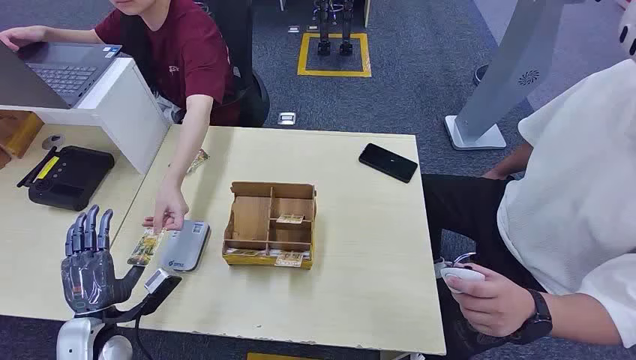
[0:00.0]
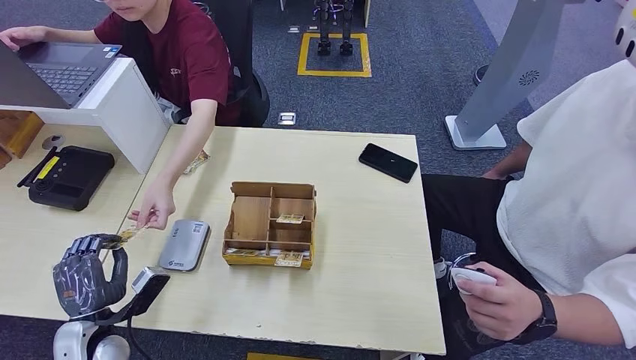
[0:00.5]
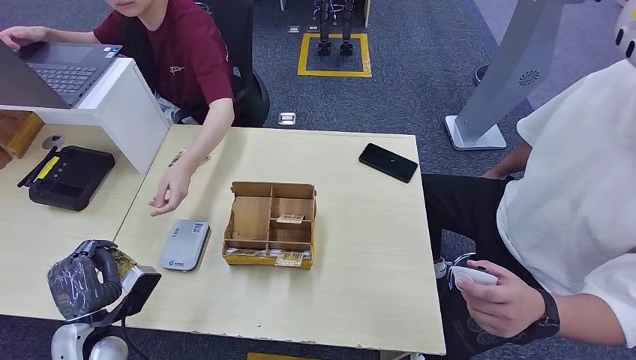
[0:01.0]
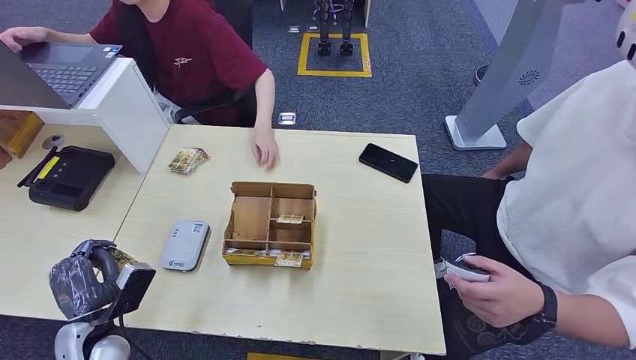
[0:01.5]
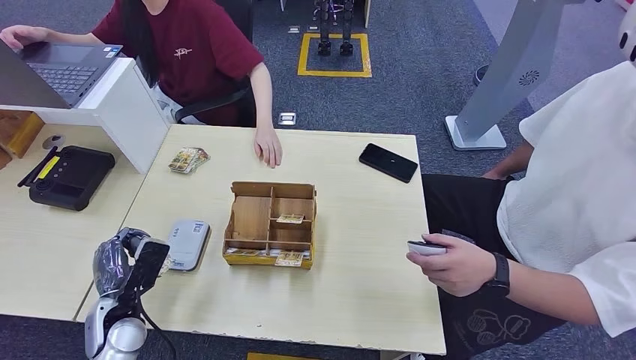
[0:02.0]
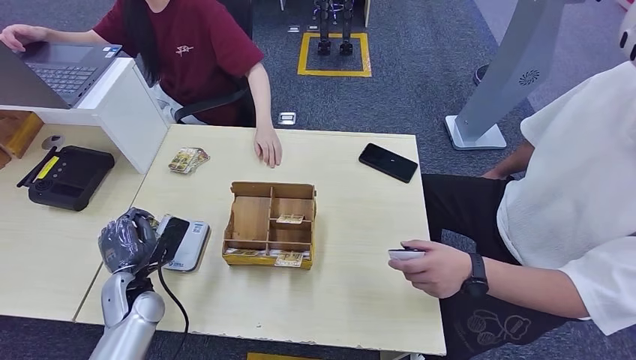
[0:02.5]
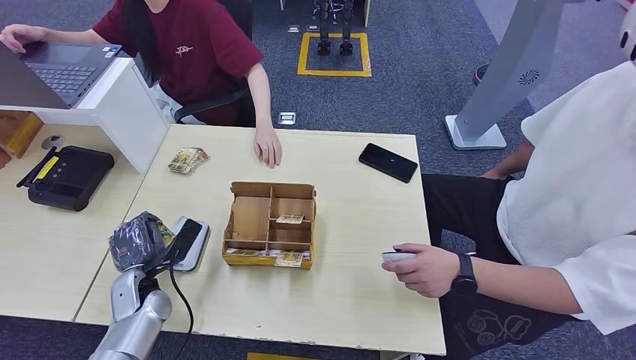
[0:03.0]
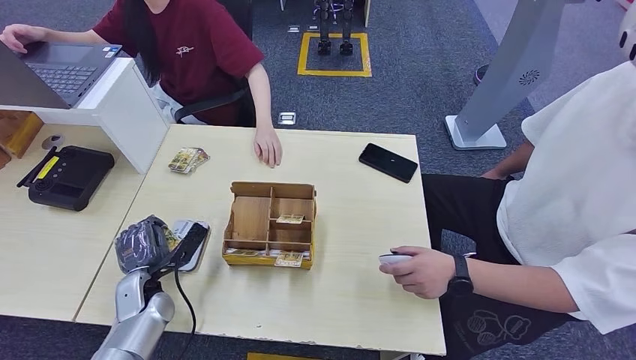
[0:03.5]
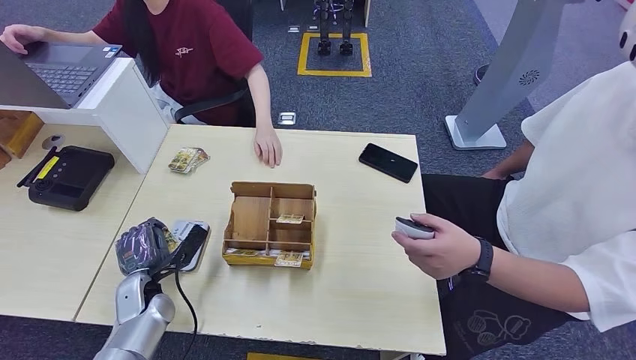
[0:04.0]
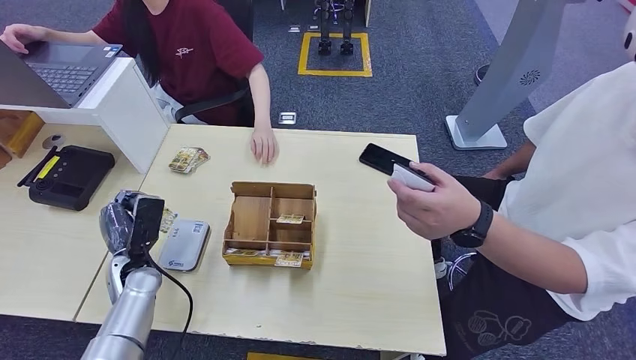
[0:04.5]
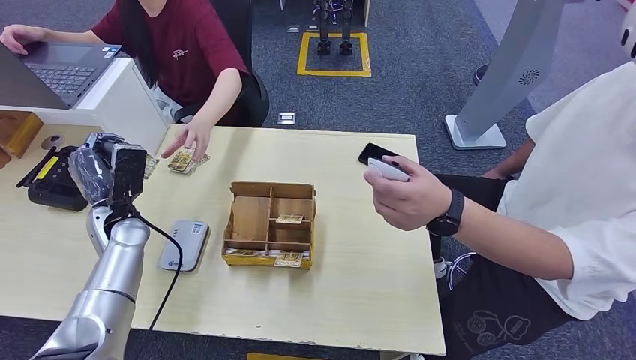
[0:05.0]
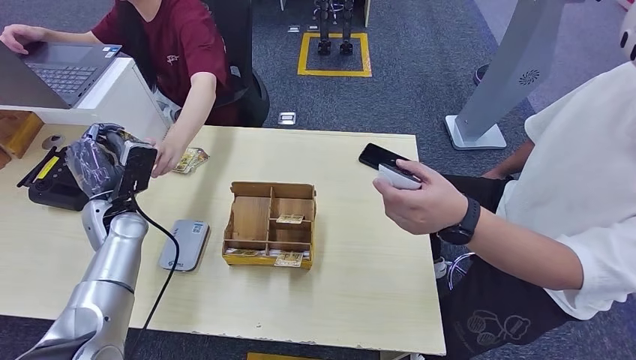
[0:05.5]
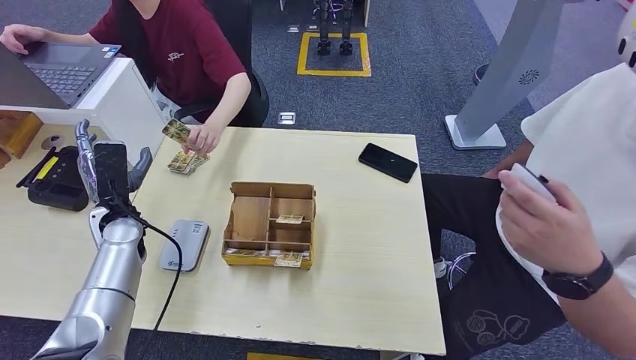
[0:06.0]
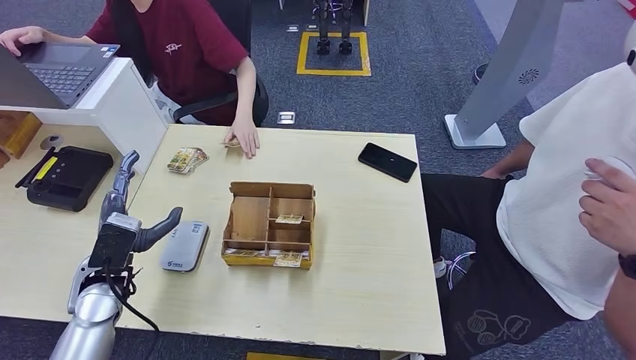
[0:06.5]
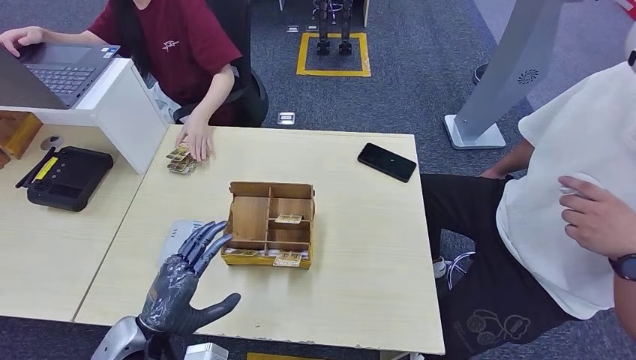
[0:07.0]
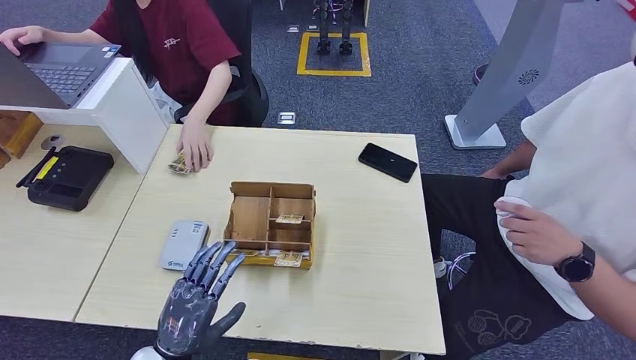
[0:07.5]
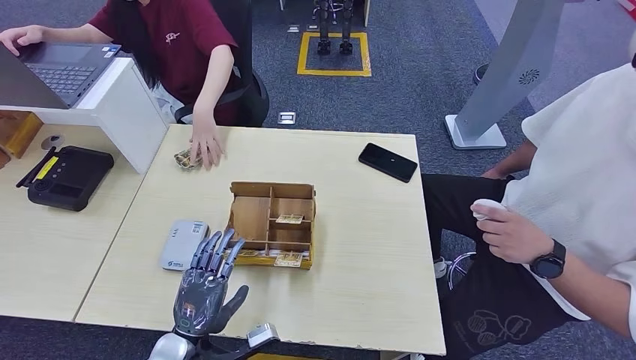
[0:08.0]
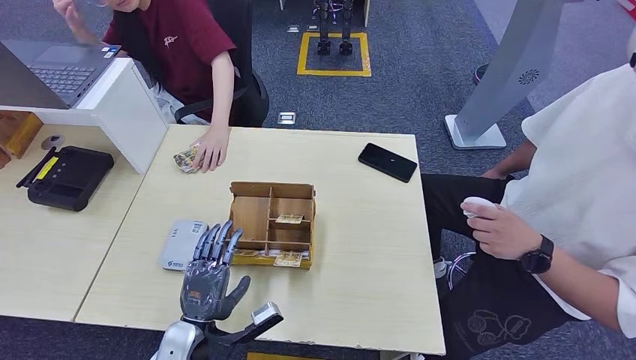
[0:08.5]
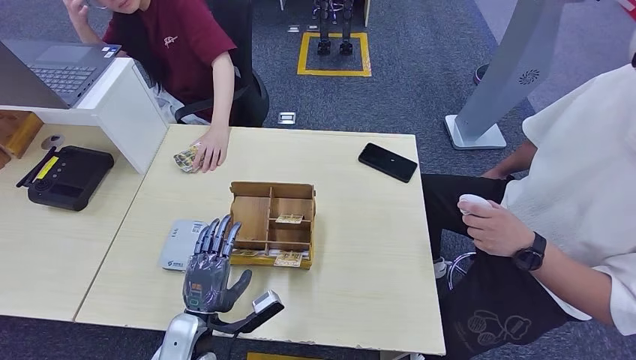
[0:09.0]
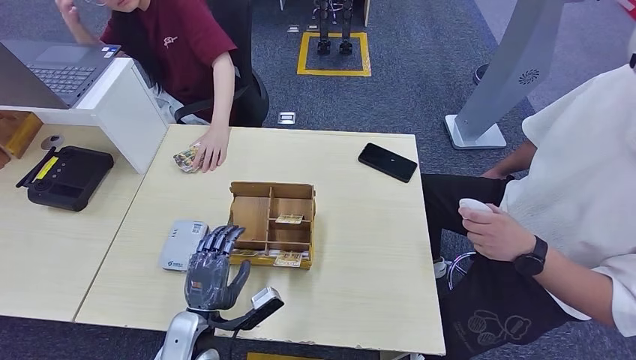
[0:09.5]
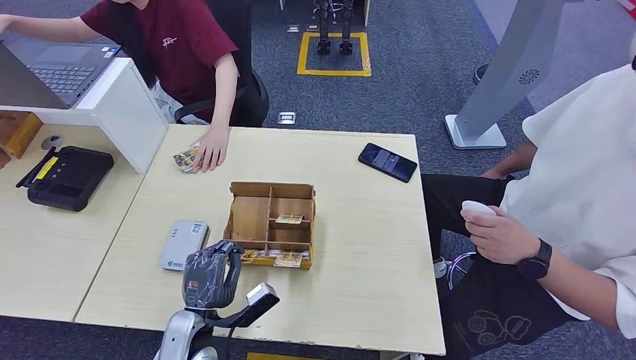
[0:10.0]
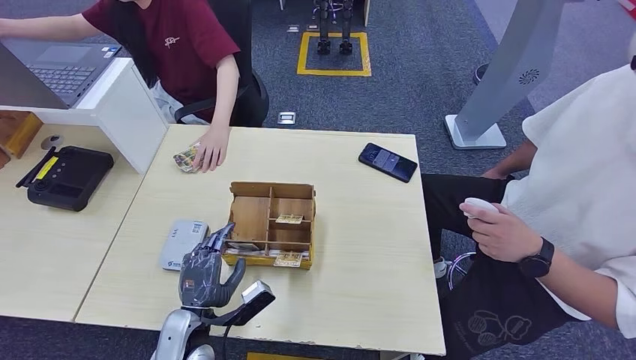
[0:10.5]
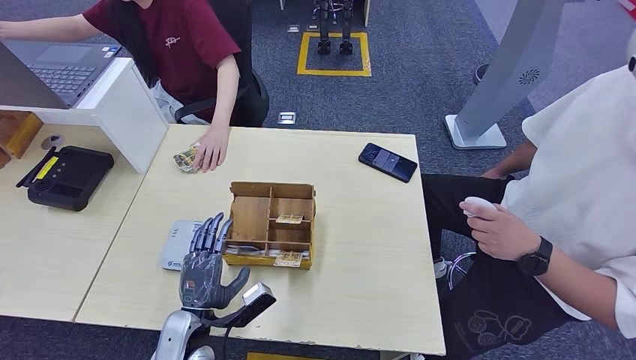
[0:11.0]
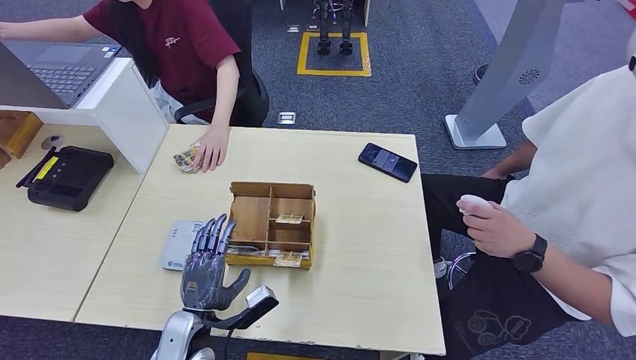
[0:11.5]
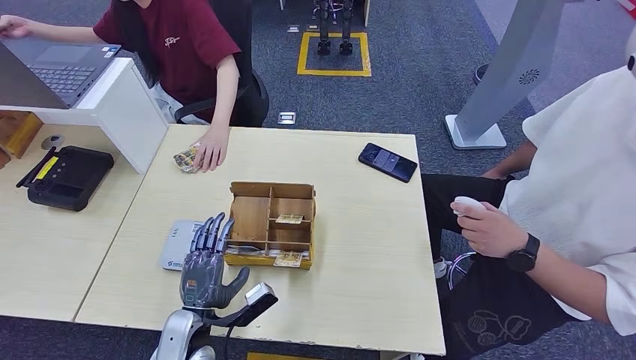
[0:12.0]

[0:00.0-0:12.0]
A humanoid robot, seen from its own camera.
Step, 0:00.0 to 0:00.5: Take the ID card from the person's hand.
Step, 0:01.0 to 0:04.0: Place the ID card on the card reader.
Step, 0:04.5 to 0:06.0: Hand the ID card to the person.
0:02.0 to 0:04.0: The left hand travels forward by about 5 cm.
0:04.0 to 0:06.0: The left hand heads upward and forward, covering some 15 cm.
0:06.0 to 0:08.0: The left hand is displaced backward, to the right and downward by approximately 25 cm.
0:08.0 to 0:10.0: The hands make only small movements.
0:10.0 to 0:12.0: The two hands keep their place.

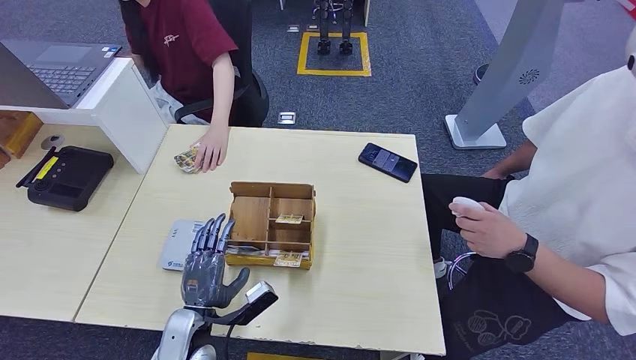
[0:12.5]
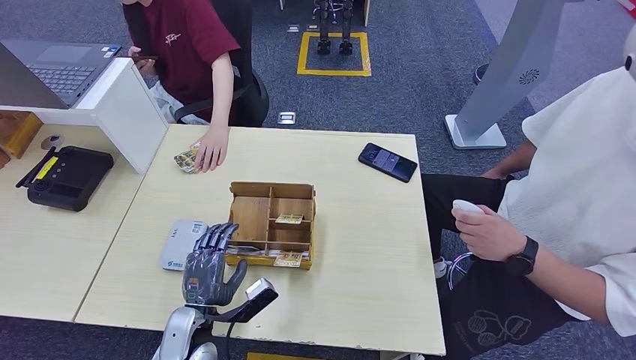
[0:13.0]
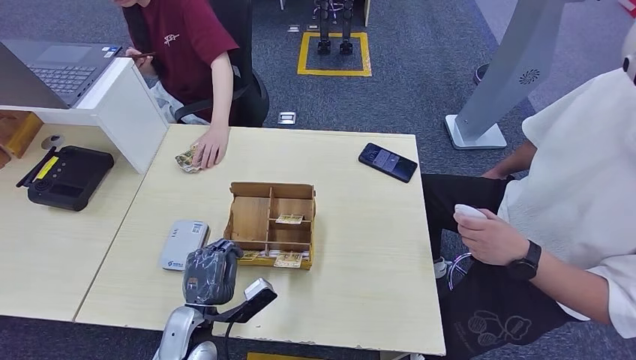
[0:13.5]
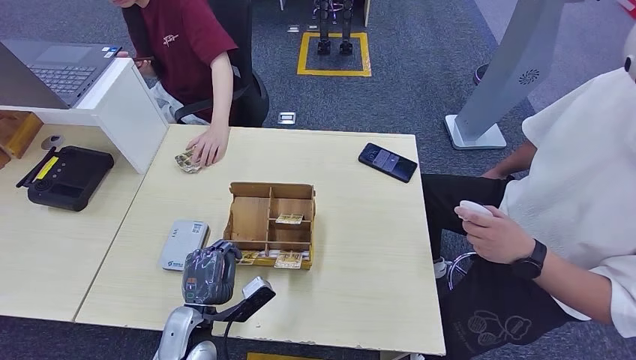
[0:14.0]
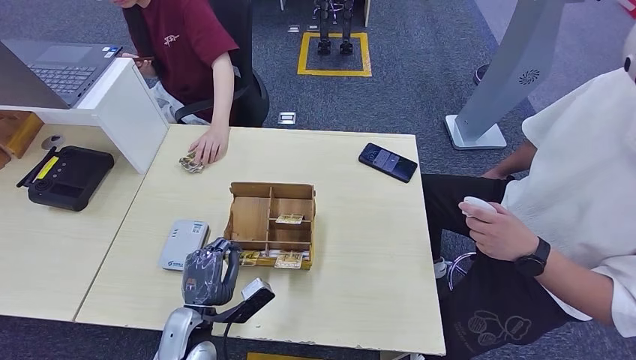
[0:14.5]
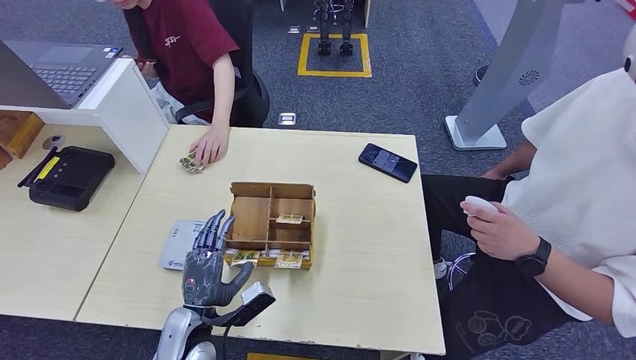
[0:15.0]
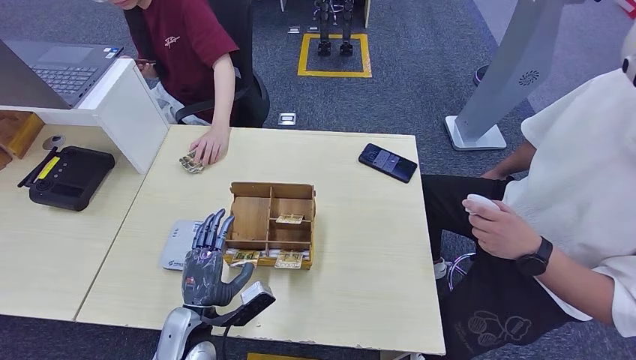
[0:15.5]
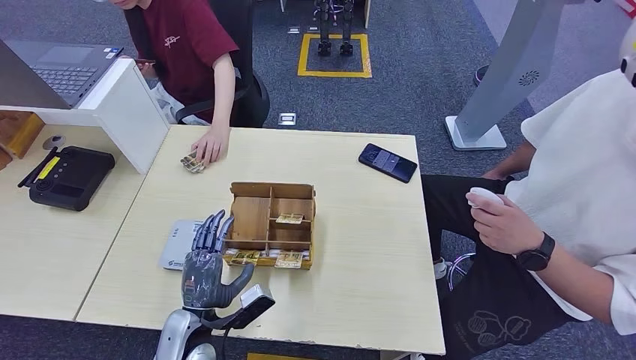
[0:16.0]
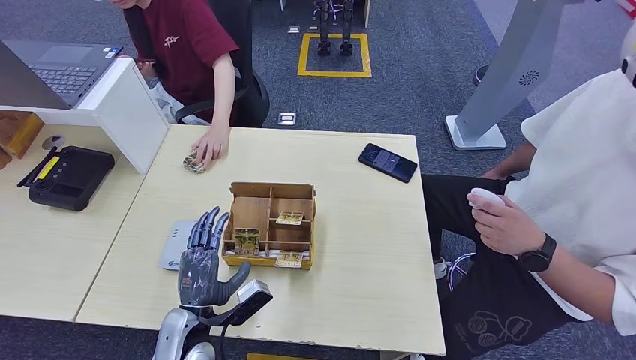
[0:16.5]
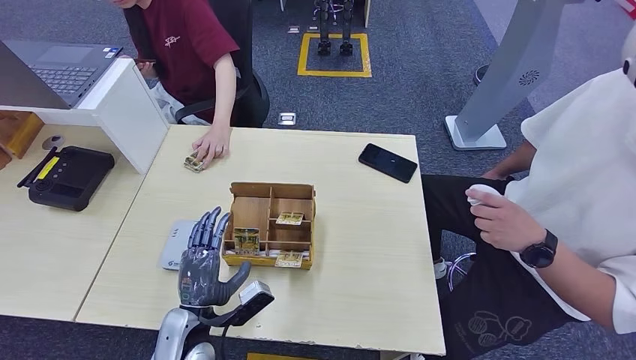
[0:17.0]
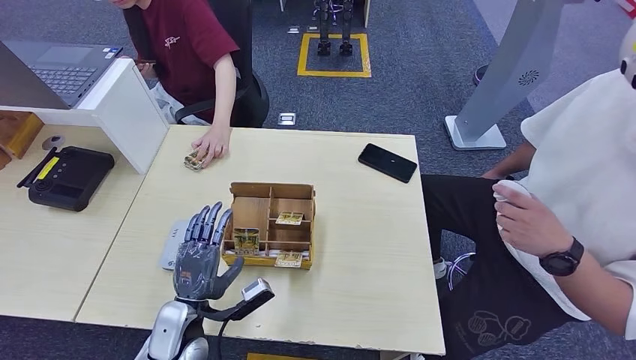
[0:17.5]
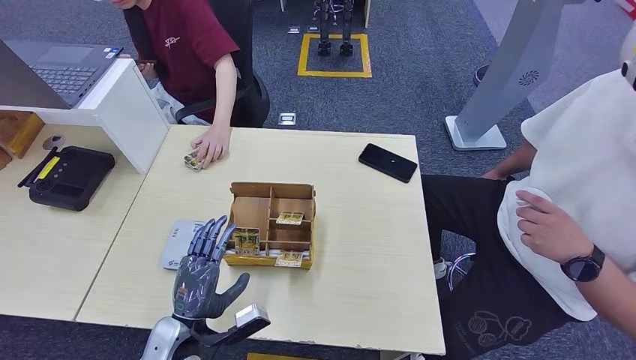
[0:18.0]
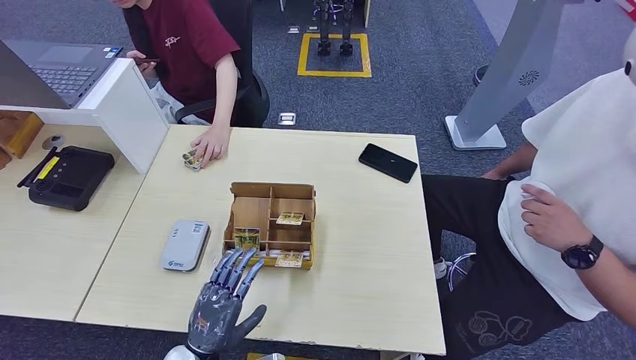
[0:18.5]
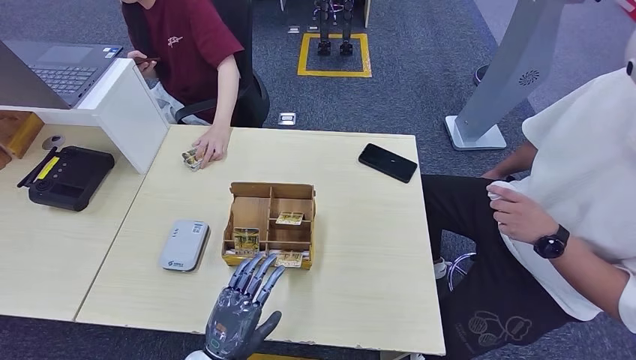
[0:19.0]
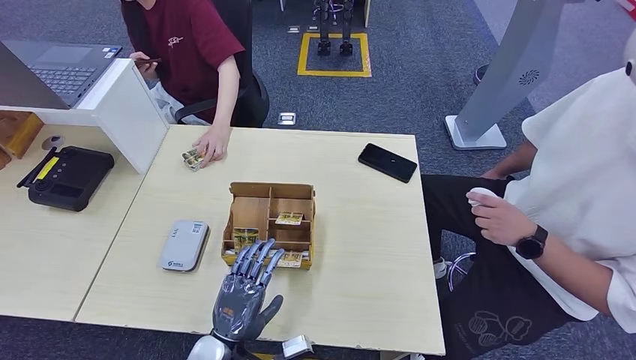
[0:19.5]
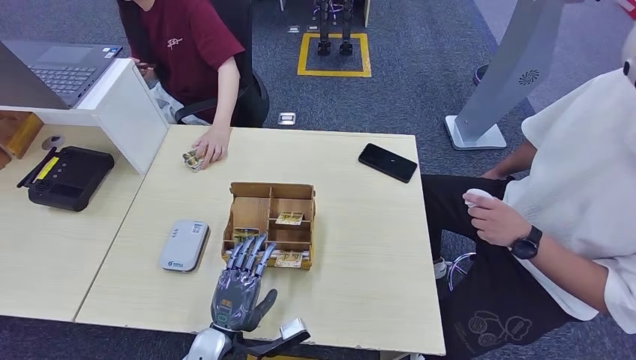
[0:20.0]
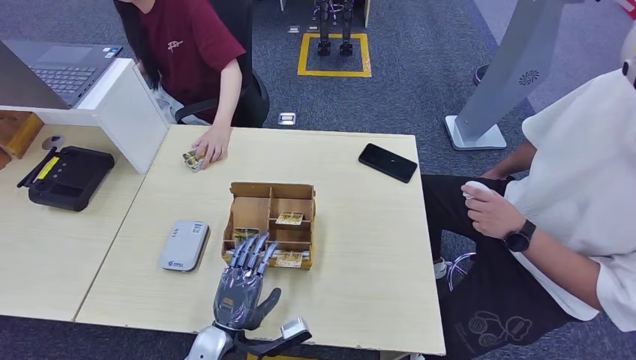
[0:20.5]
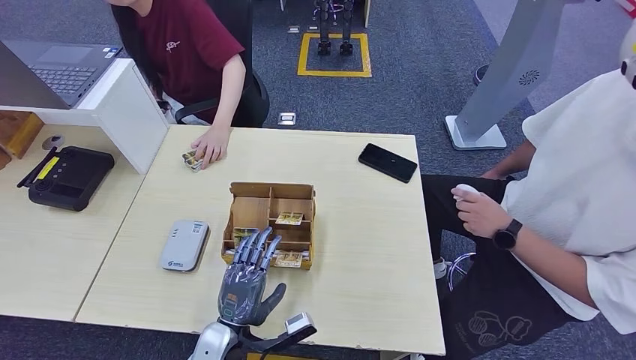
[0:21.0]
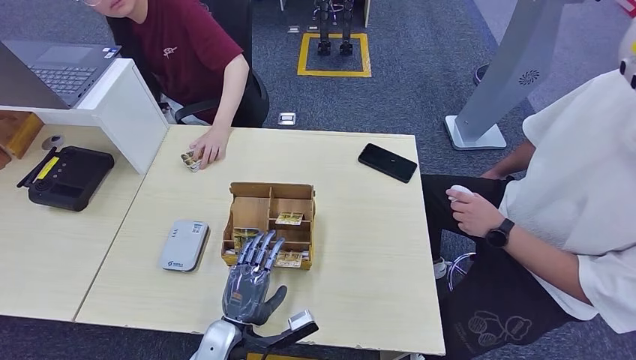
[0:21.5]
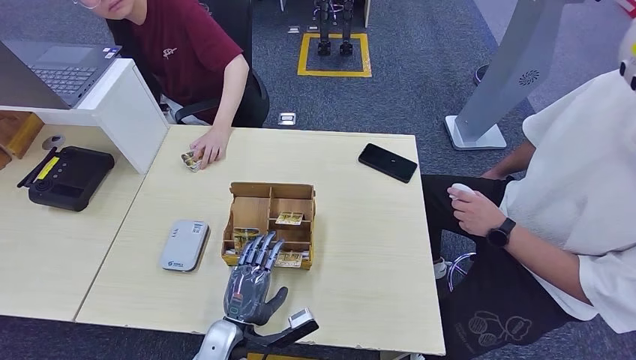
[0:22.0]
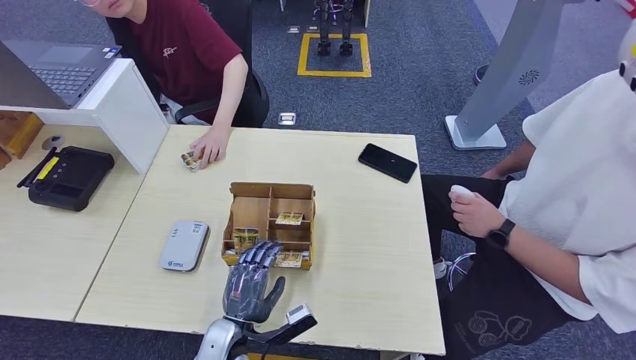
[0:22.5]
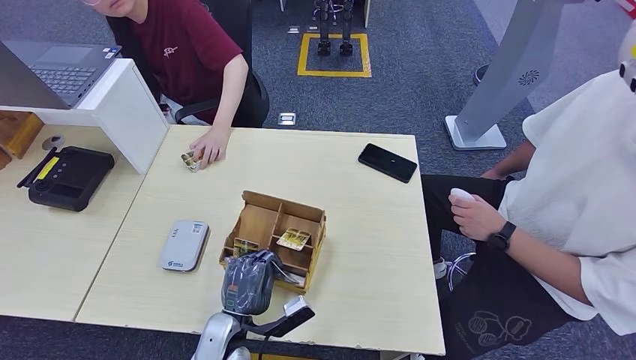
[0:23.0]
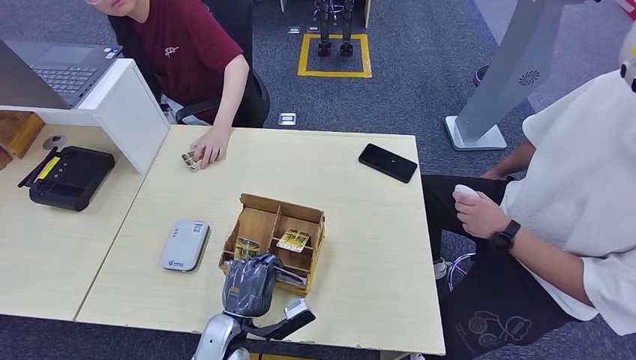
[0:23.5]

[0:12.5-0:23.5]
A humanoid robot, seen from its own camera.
0:12.5 to 0:14.5: There are only small adjustments of the hands.
0:14.5 to 0:16.0: Neither hand changes place.
0:16.0 to 0:18.0: The hands stay close to where they were, moving slightly.
0:18.0 to 0:20.0: The left hand goes roughly 5 cm to the right.
0:20.0 to 0:23.5: There are only small adjustments of the hands.
